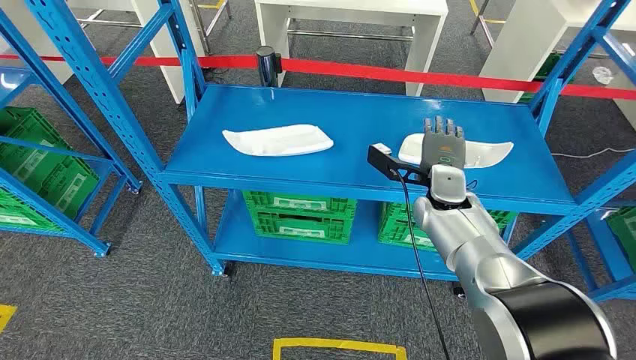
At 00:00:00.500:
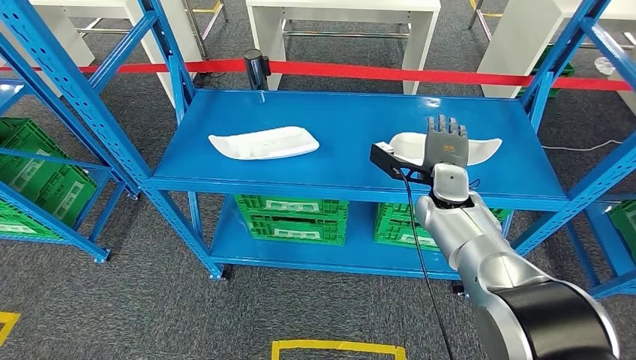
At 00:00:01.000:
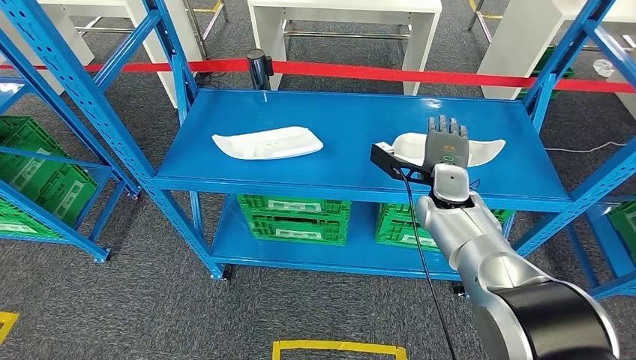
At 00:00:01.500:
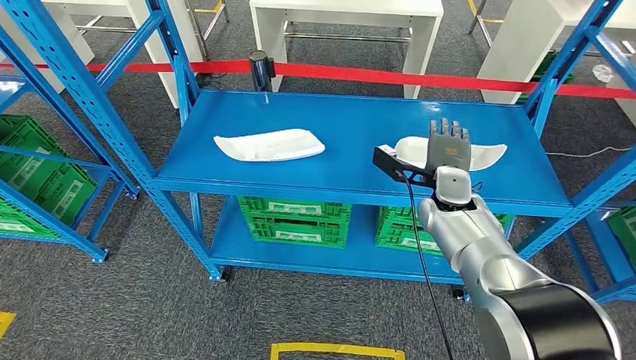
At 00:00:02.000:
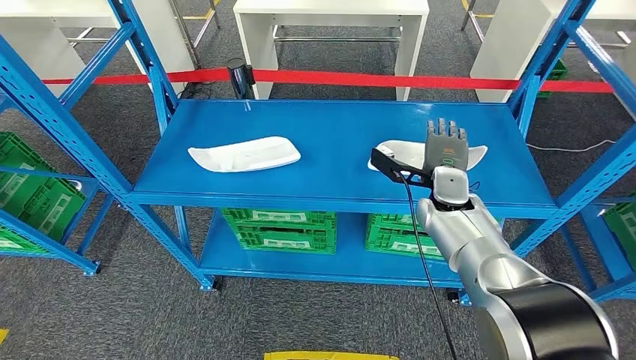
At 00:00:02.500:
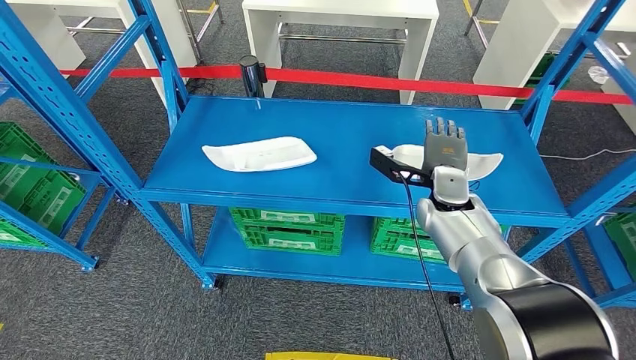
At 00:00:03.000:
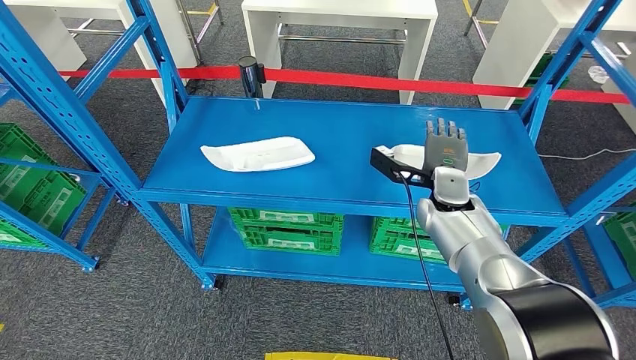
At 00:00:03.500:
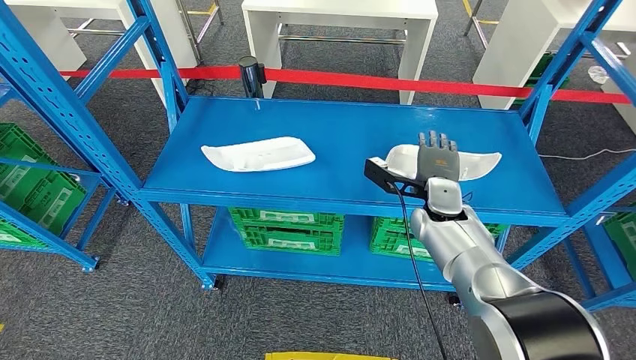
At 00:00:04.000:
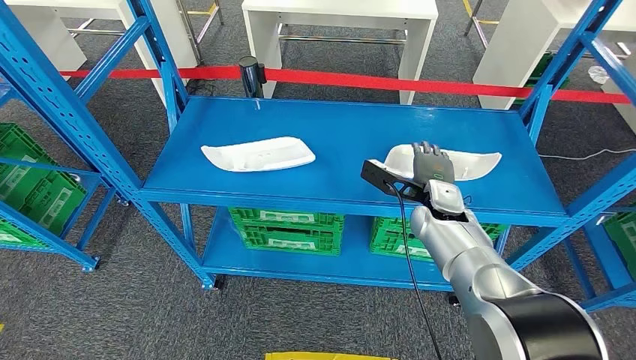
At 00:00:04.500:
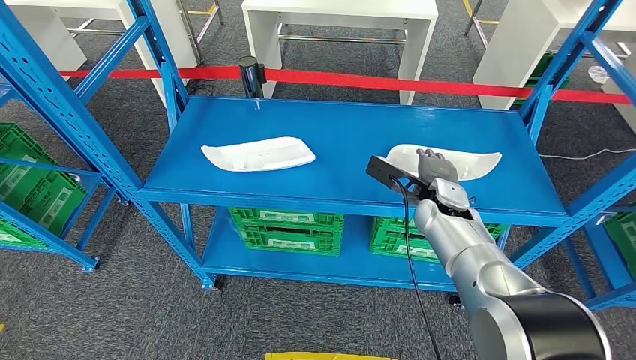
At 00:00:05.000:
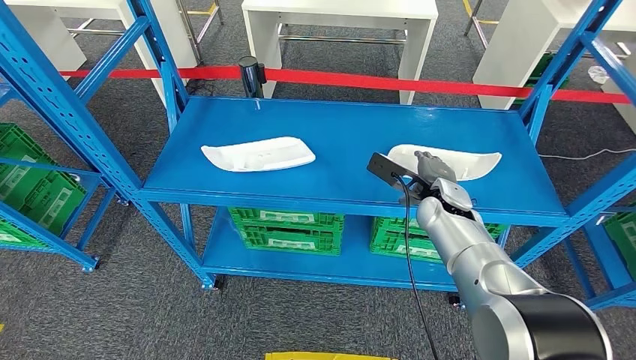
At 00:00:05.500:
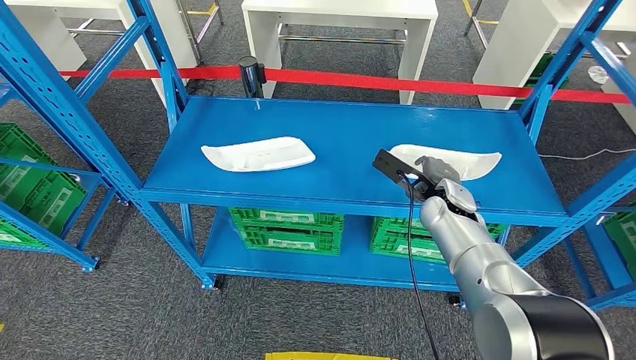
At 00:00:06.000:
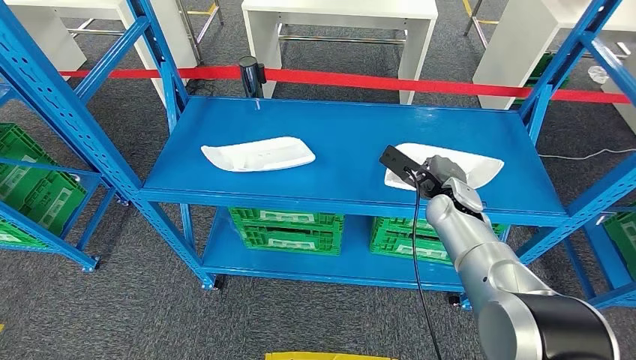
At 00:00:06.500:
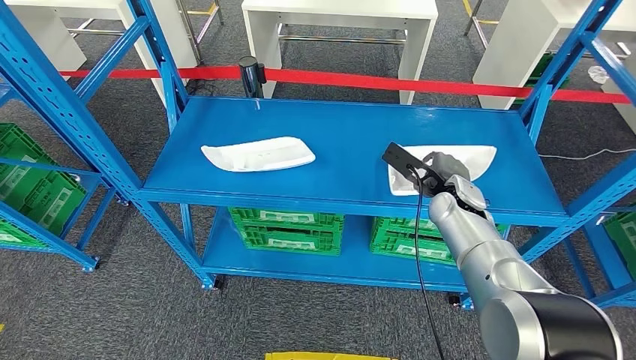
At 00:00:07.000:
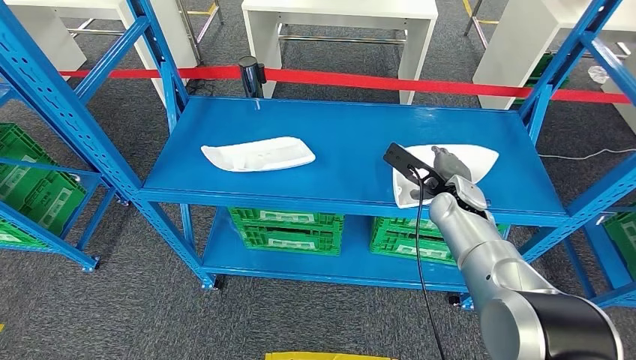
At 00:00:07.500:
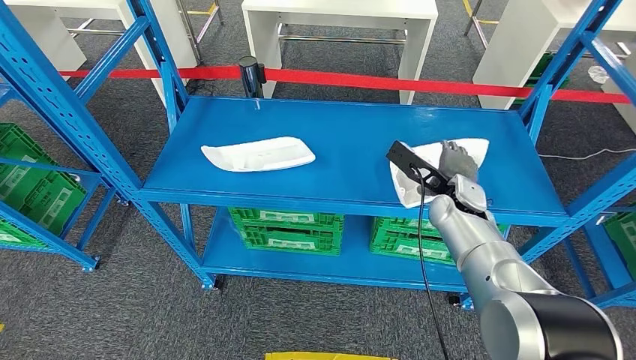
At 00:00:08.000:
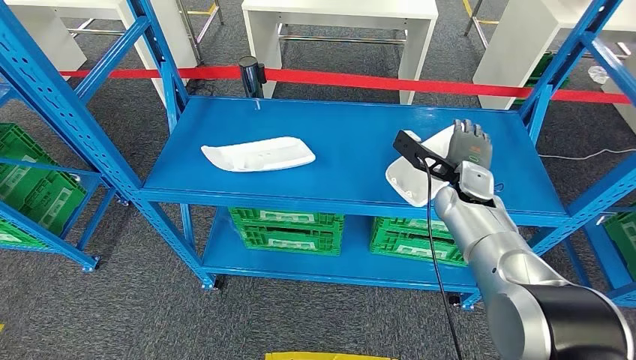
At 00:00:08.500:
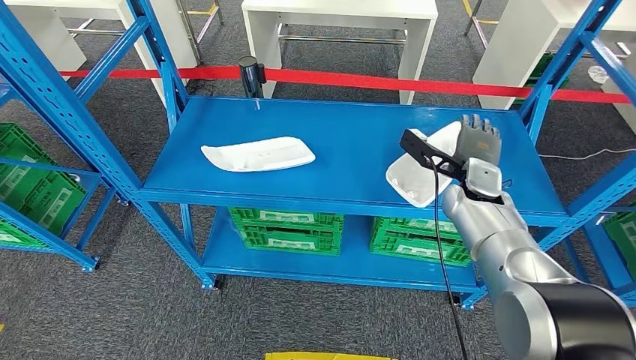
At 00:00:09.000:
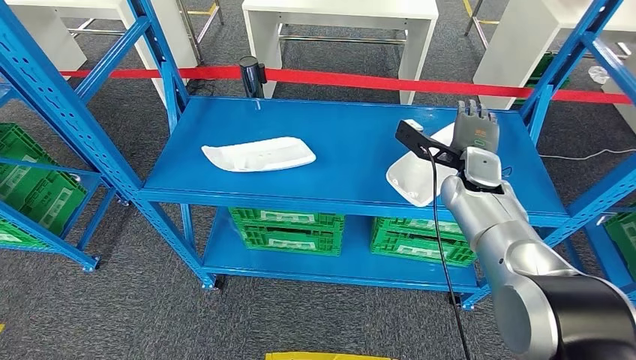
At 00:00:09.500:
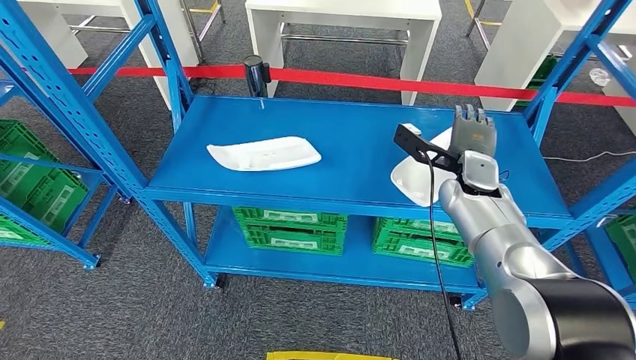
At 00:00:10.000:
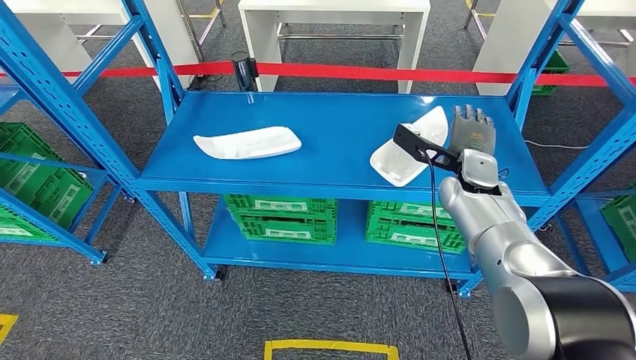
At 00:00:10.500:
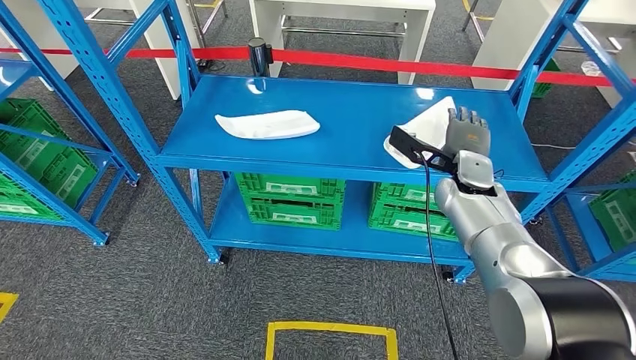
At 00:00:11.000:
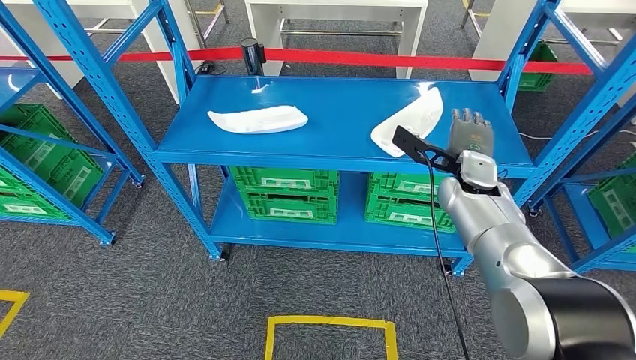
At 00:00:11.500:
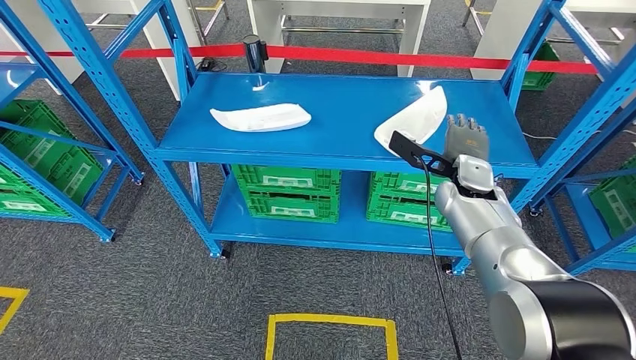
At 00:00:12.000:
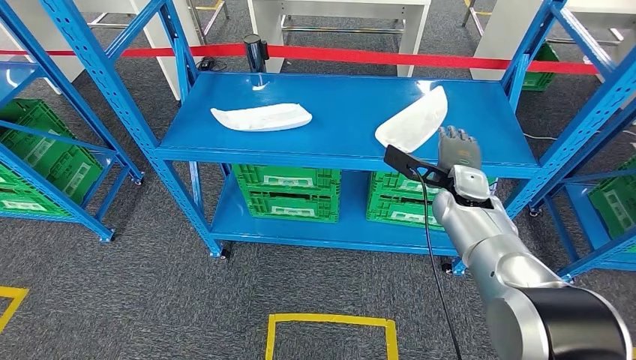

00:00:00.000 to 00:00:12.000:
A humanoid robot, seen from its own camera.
00:00:04.000 to 00:00:06.000: There are only small adjustments of the hands.

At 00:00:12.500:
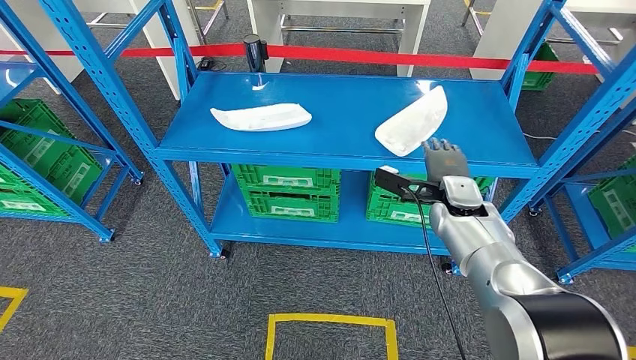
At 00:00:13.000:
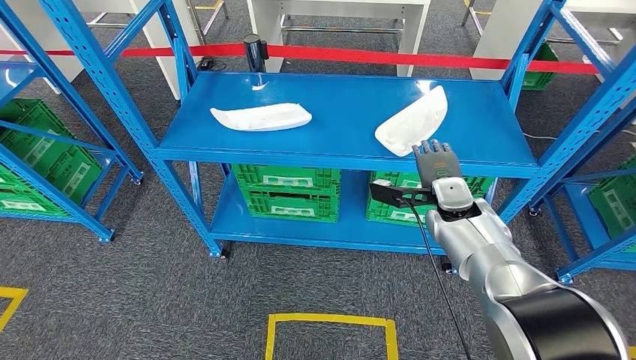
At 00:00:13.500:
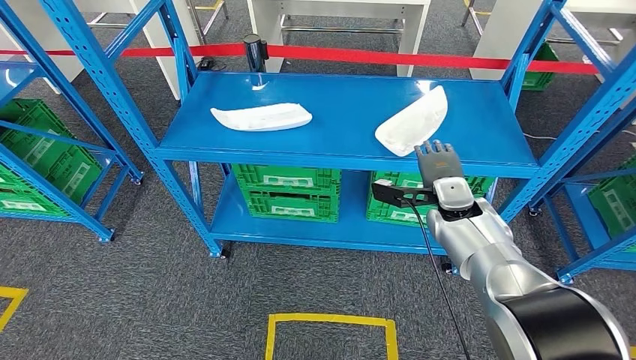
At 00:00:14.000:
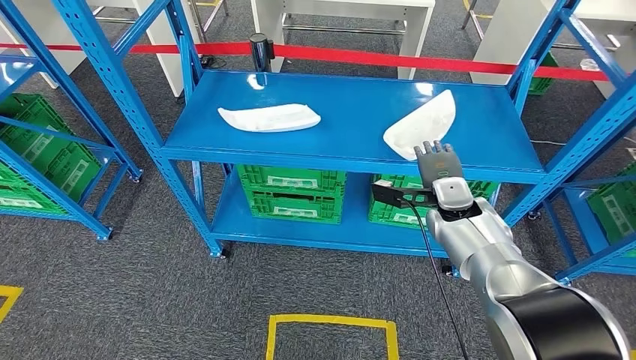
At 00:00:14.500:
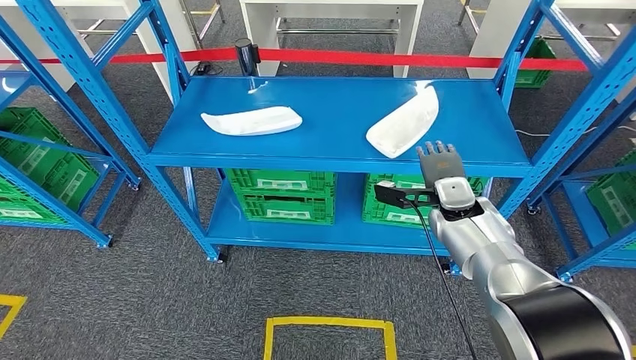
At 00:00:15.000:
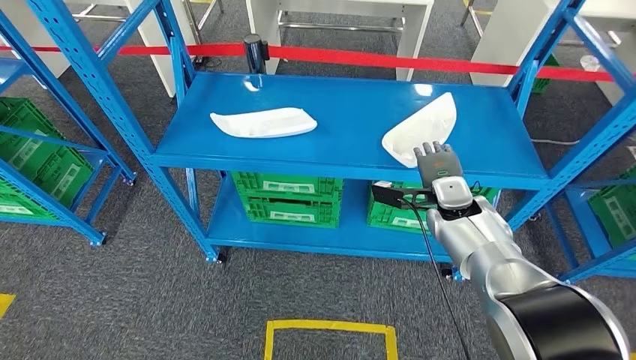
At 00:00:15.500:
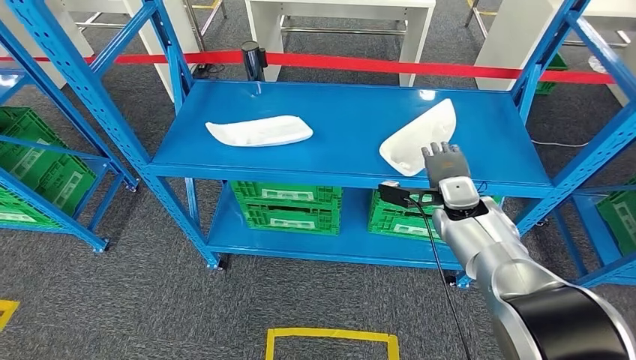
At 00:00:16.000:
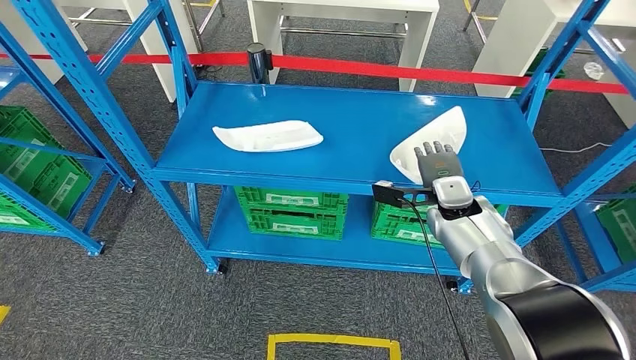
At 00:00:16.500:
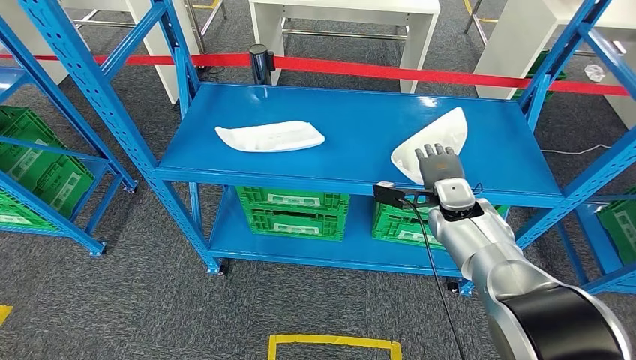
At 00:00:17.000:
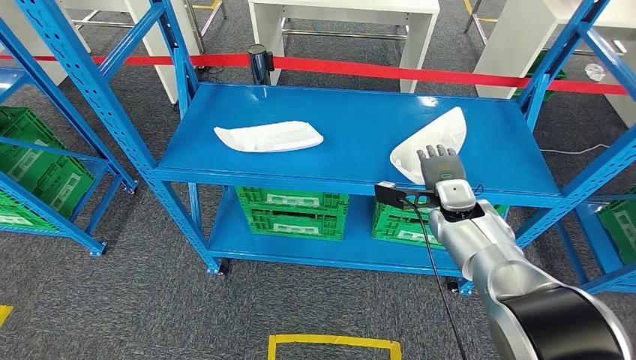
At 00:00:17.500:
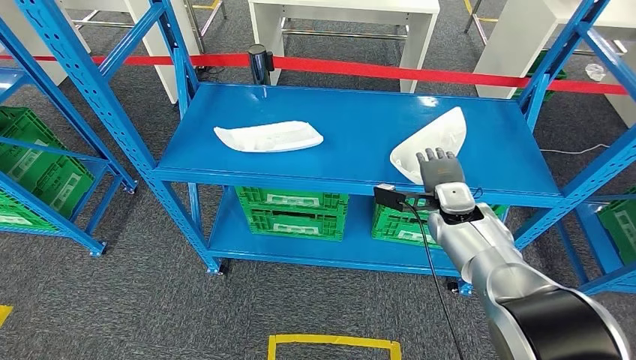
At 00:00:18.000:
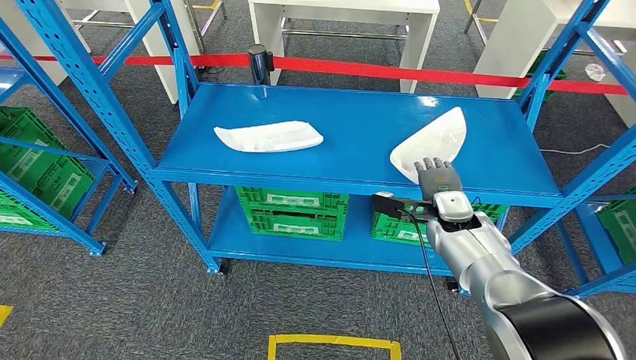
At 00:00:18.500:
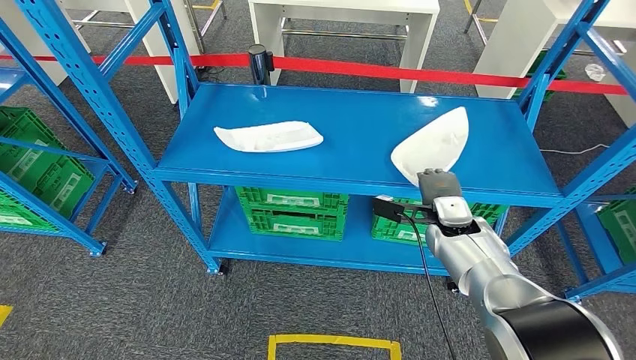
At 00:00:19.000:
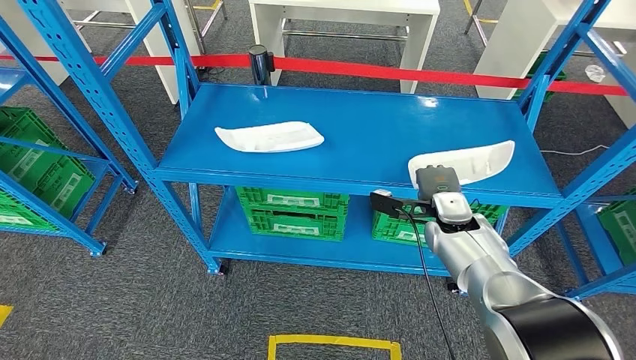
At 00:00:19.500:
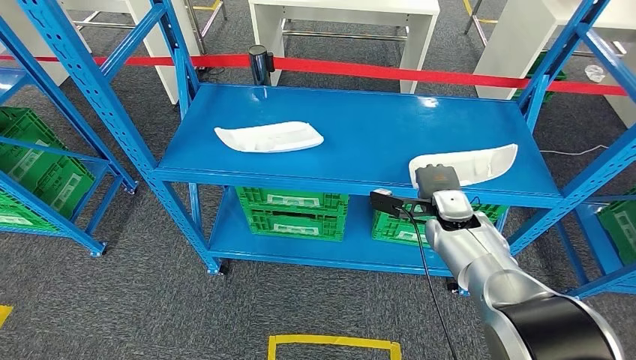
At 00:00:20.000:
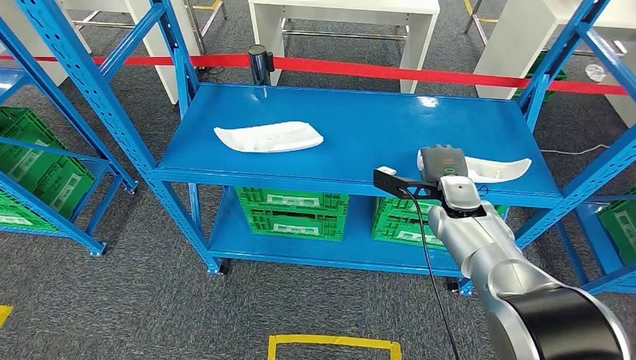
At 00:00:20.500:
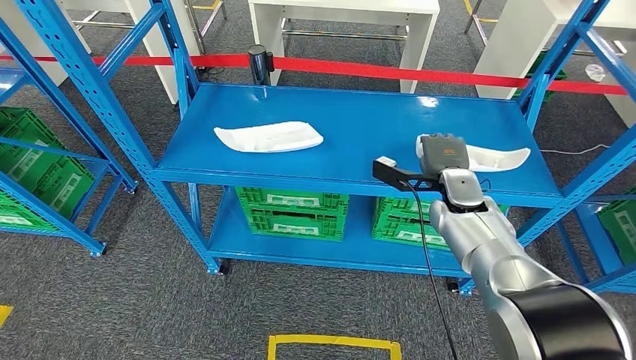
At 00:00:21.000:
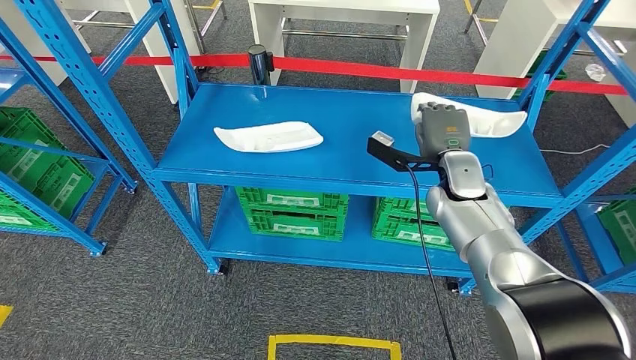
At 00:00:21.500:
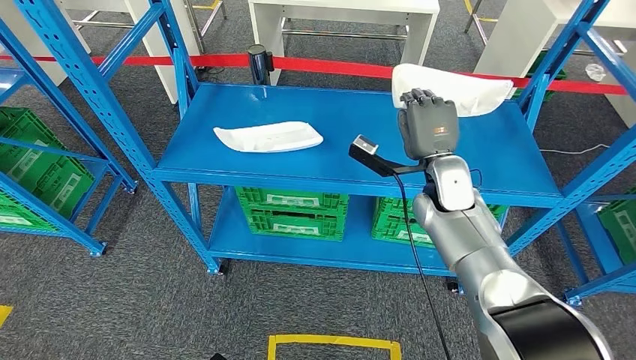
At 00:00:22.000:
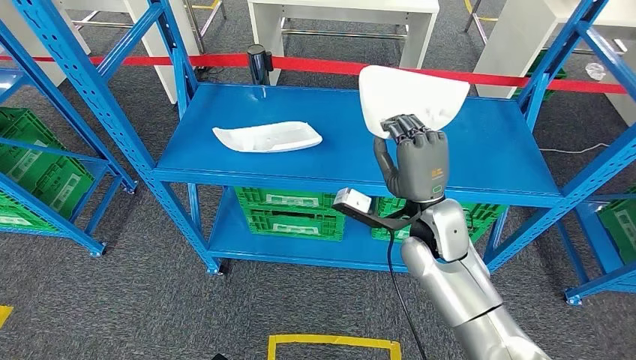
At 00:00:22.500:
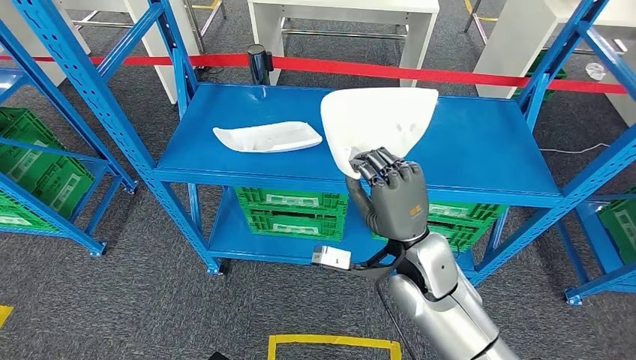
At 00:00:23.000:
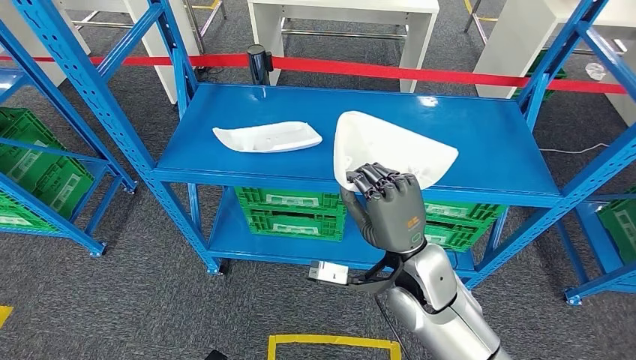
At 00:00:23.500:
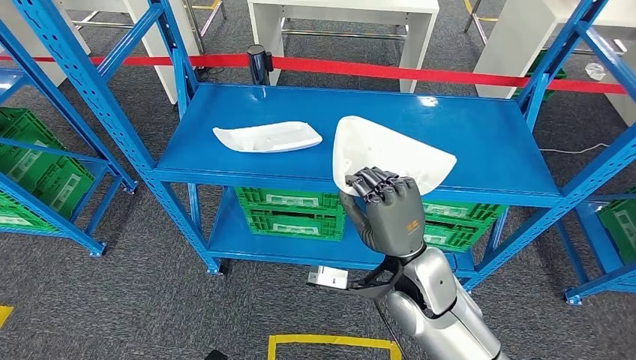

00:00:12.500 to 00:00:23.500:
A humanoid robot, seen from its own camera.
Step, 00:00:12.500 to 00:00:21.500: Pick up the small component from the shelf.
00:00:16.000 to 00:00:20.000: The hands stay close to where they were, moving slightly.
00:00:20.000 to 00:00:21.500: The right hand travels upward by some 5 cm.
00:00:21.500 to 00:00:23.500: The right hand shifts about 15 cm backward.
